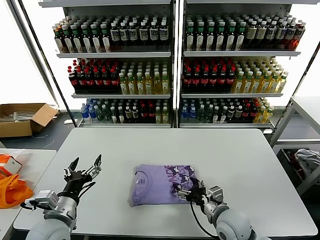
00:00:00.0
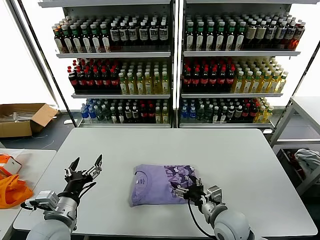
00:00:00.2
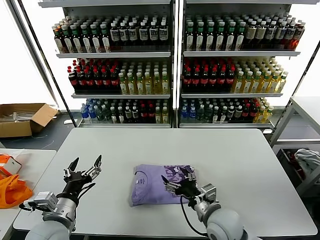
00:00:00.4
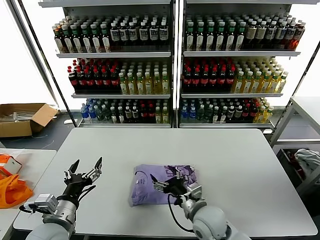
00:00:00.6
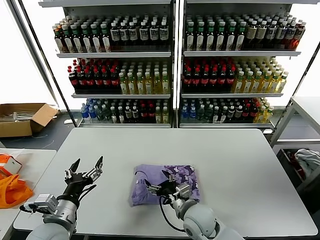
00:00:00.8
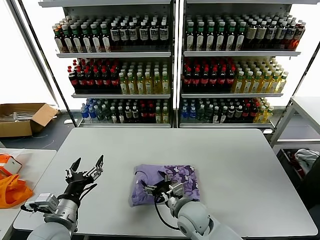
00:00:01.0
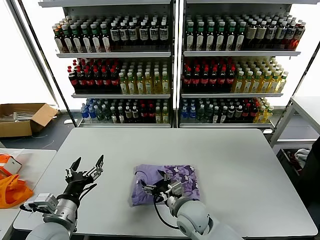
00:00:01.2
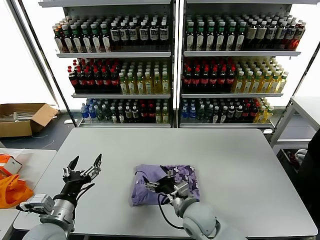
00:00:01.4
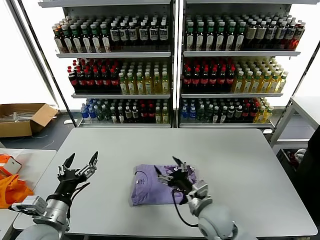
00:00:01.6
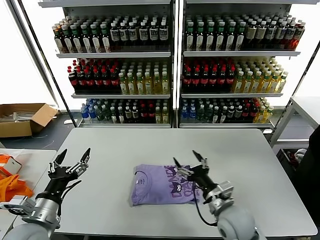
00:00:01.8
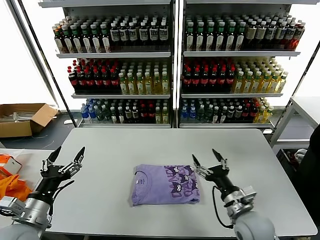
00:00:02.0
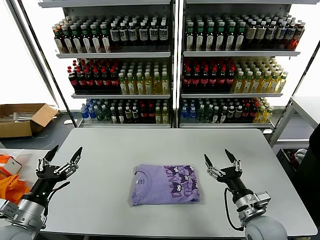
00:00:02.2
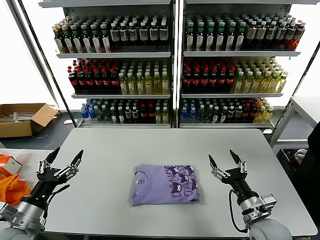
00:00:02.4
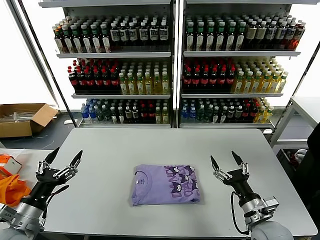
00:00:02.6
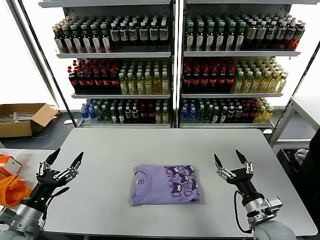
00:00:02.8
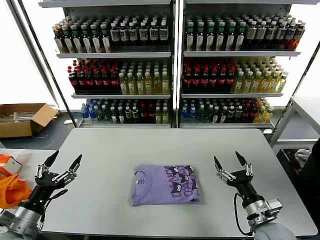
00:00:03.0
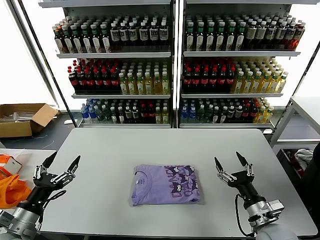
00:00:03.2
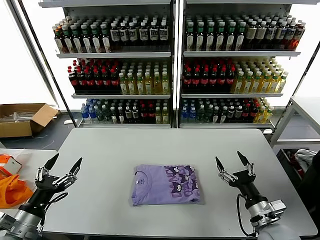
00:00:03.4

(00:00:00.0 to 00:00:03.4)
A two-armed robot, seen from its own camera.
Task of the whole recording: fold and organize the clothes.
00:00:00.0 - 00:00:01.6: The right gripper heads to the left, covering roughly 5 cm.
00:00:01.6 - 00:00:03.4: The left gripper moves to the left, about 10 cm. Meanwhile the right gripper travels to the right by about 15 cm.
